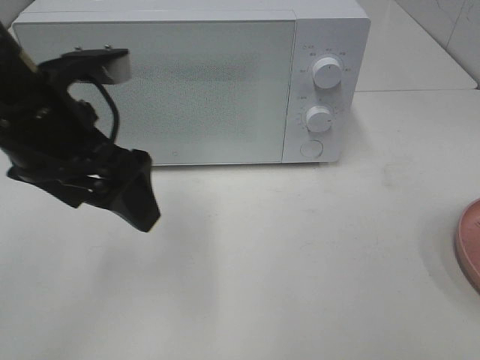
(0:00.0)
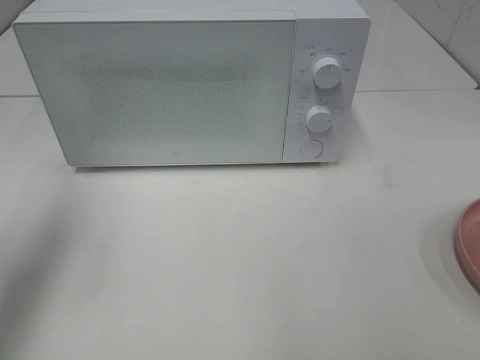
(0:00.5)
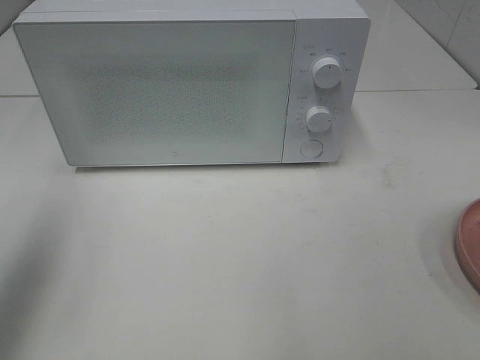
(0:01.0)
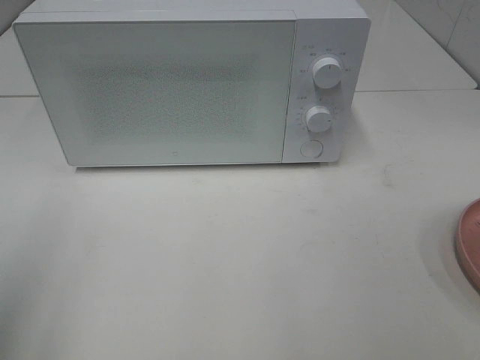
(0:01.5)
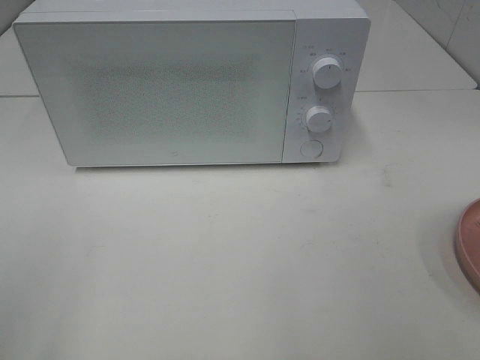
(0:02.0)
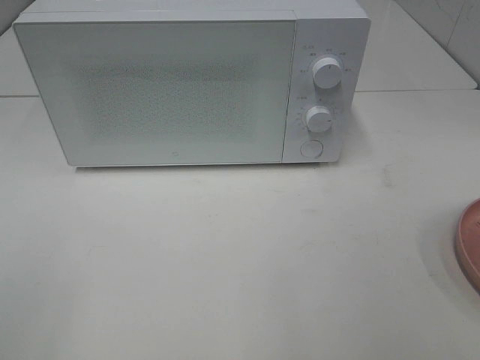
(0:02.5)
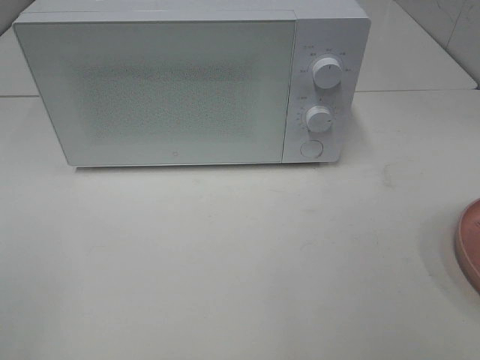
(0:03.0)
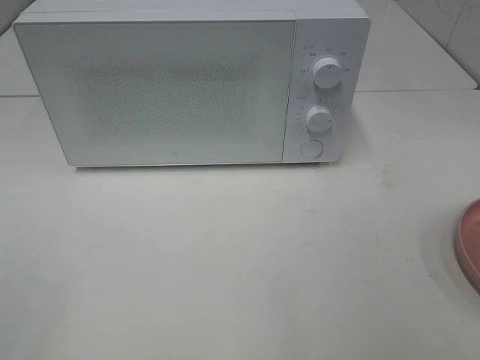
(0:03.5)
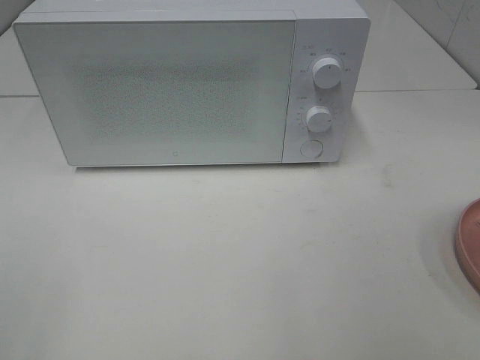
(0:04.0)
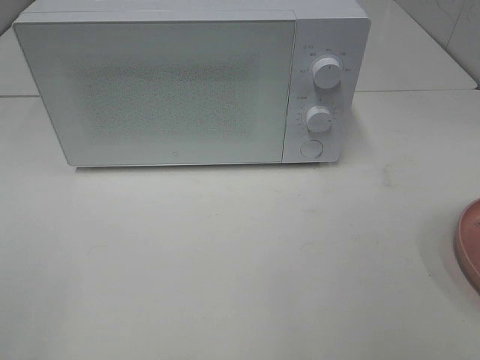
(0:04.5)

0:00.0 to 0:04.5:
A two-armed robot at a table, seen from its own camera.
Task of the whole recording: Heat the burger.
0:00.0 to 0:02.0: The left gripper travels backward and to the left by roughly 25 cm.

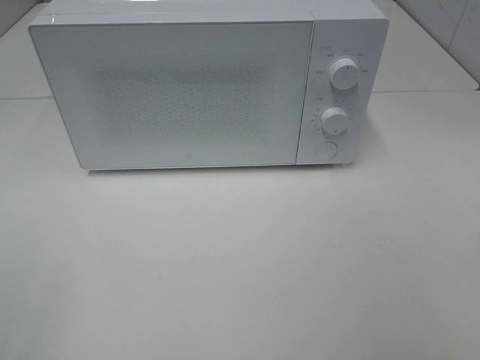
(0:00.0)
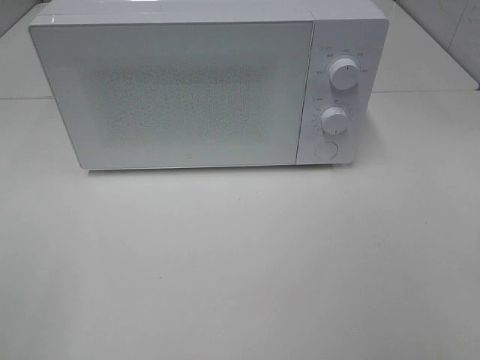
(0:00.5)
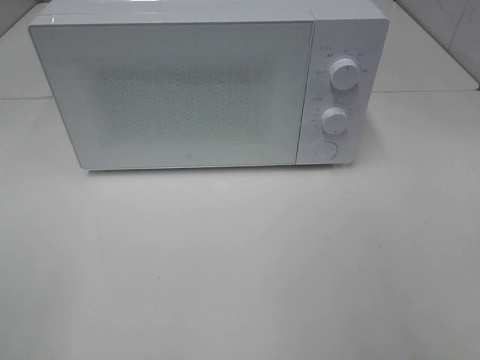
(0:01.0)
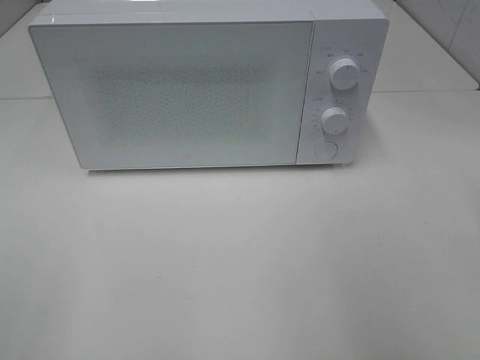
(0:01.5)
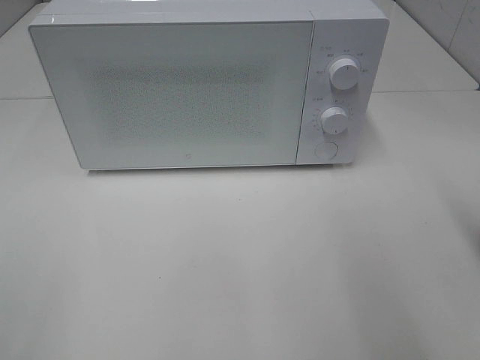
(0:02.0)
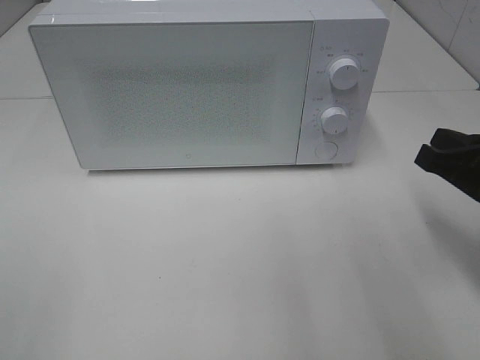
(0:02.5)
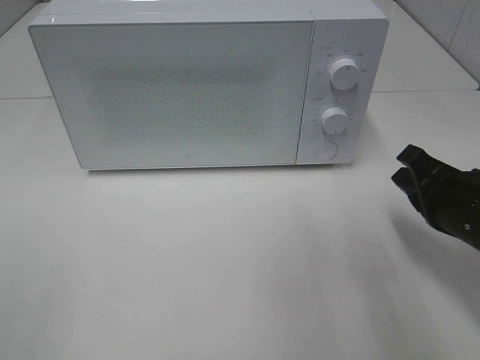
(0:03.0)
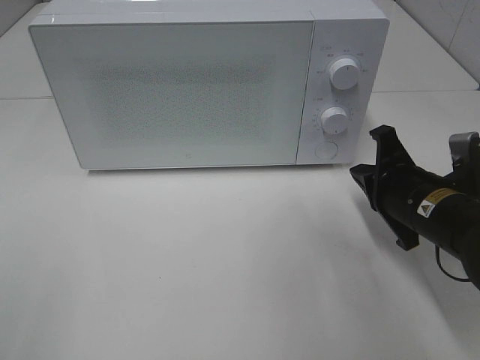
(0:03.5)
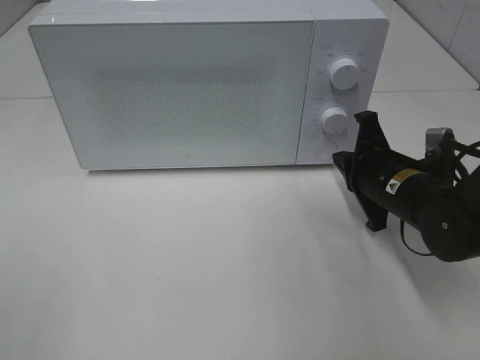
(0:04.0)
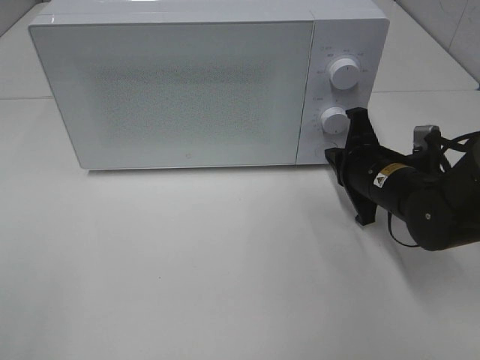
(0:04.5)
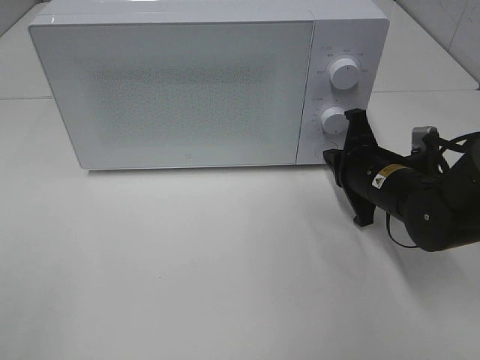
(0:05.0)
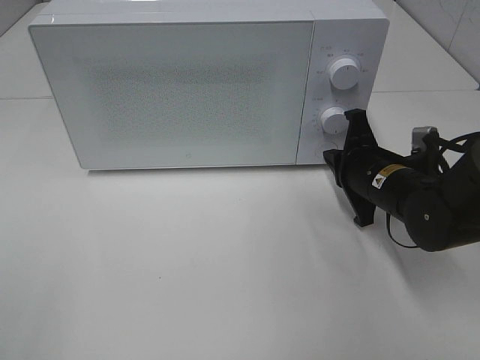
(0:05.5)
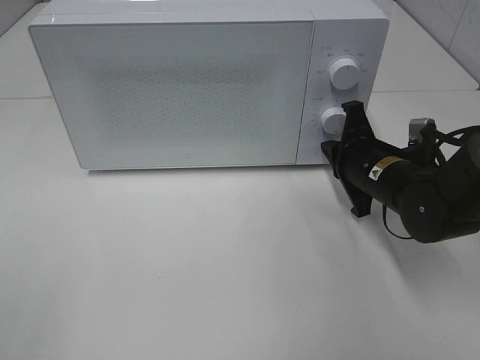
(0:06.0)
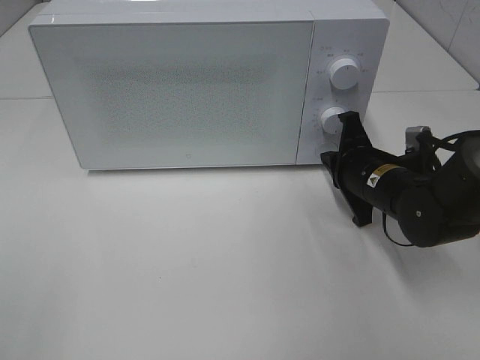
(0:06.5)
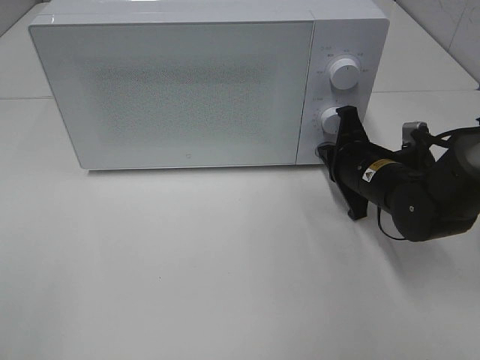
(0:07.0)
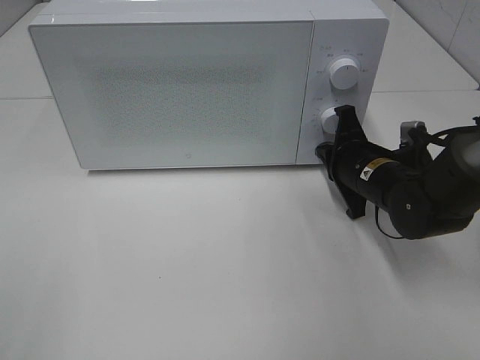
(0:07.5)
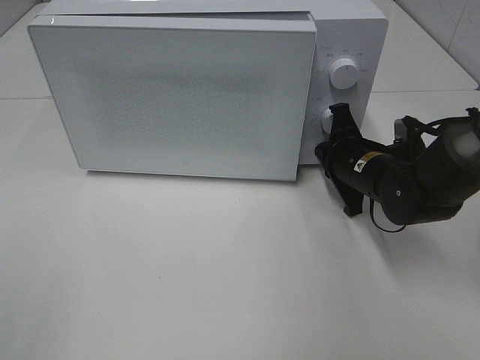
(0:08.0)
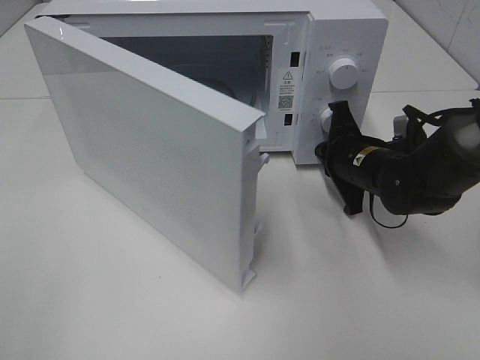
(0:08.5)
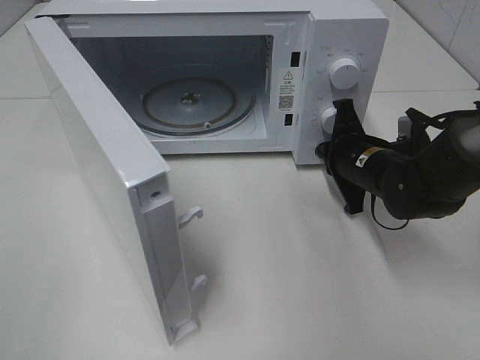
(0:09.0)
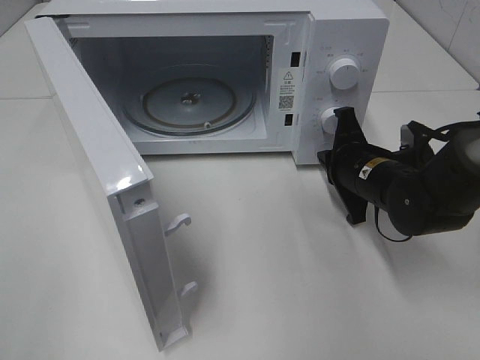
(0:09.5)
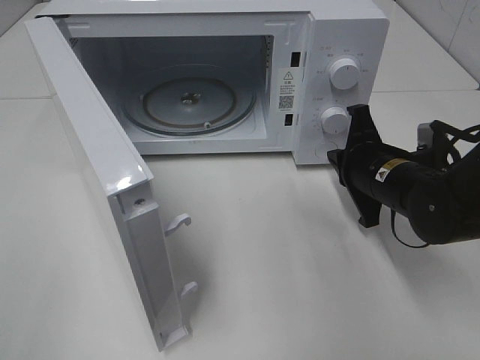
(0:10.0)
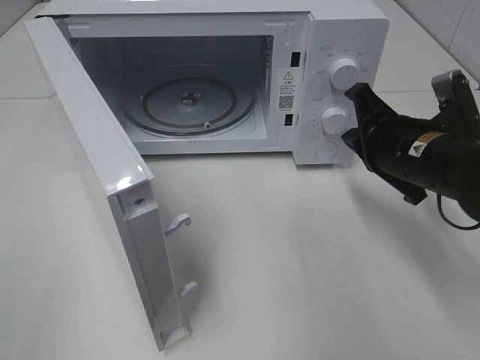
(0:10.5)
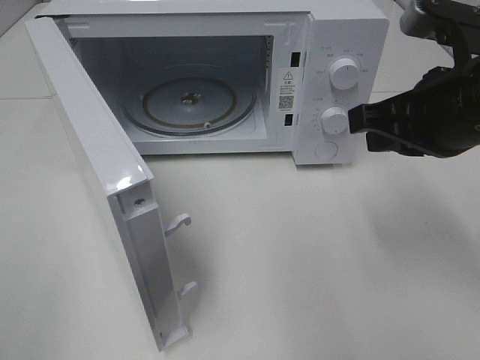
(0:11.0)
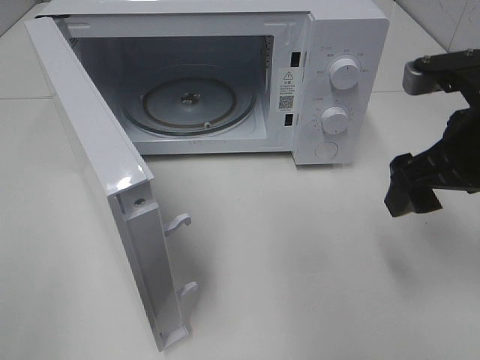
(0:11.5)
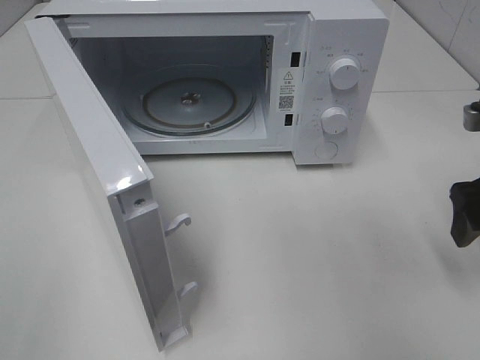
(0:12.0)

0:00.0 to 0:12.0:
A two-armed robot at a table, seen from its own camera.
Task of the whole recording: Heat the burger.
Step, 0:00.0 to 0:10.0: Right hand: press the switch.
0:02.0 to 0:04.0: The right gripper goes about 20 cm downward, forward and to the left.
0:04.0 to 0:08.0: The grippers stay close to where they were, moving slightly.
0:10.0 to 0:12.0: The right gripper shifts some 15 cm to the right, upward and backward, and opens its fingers.

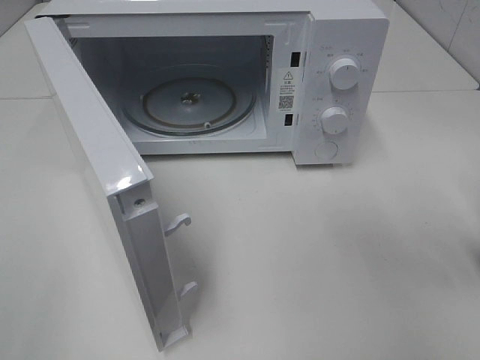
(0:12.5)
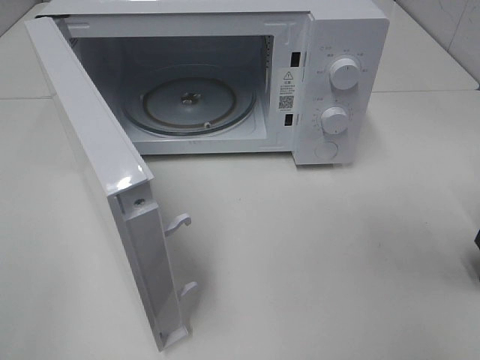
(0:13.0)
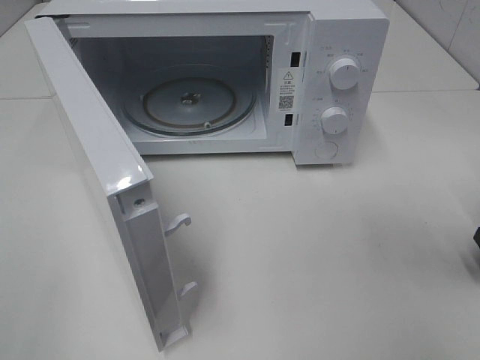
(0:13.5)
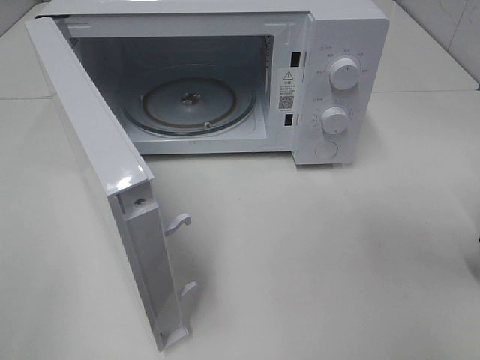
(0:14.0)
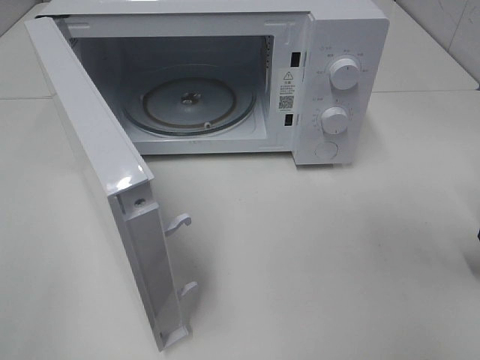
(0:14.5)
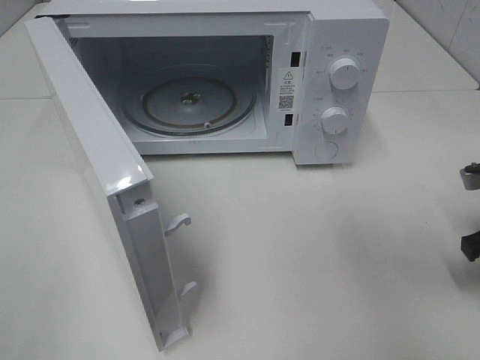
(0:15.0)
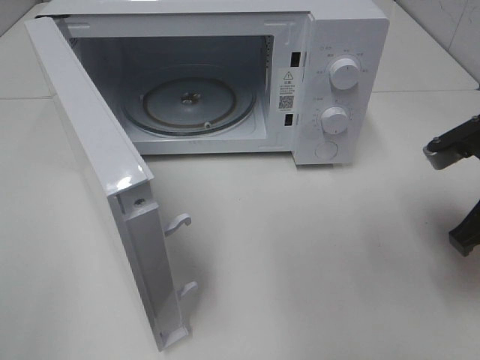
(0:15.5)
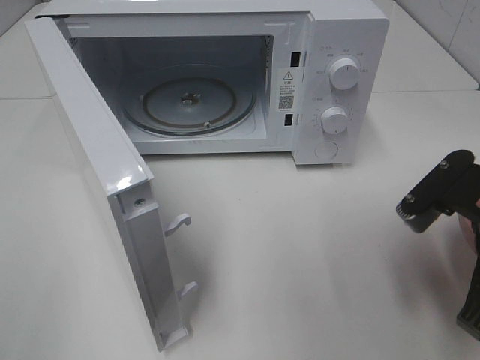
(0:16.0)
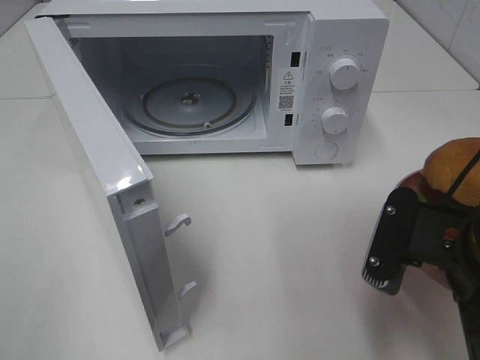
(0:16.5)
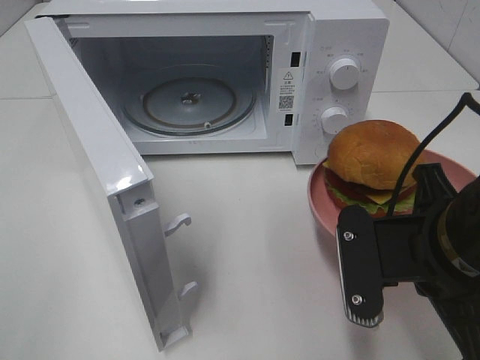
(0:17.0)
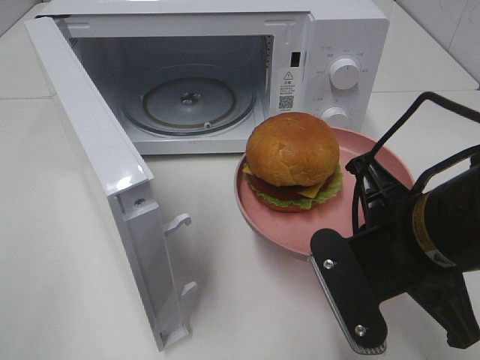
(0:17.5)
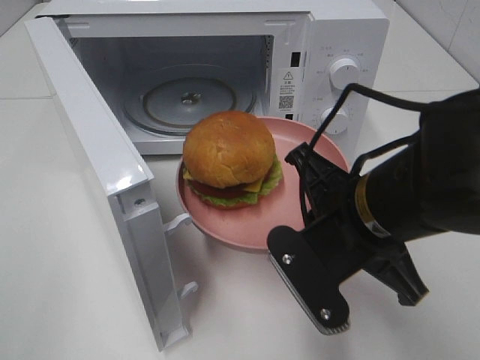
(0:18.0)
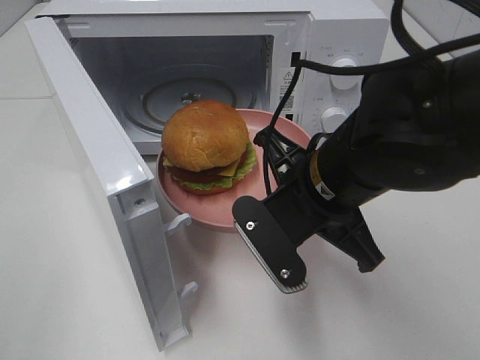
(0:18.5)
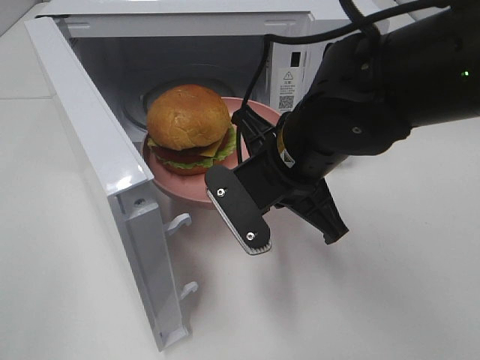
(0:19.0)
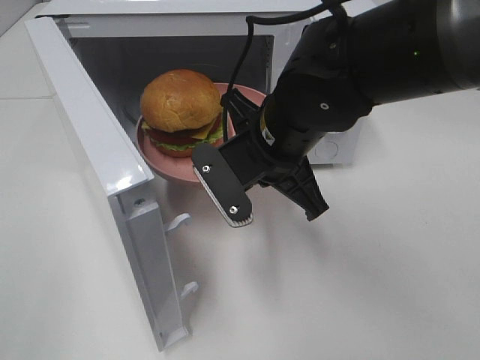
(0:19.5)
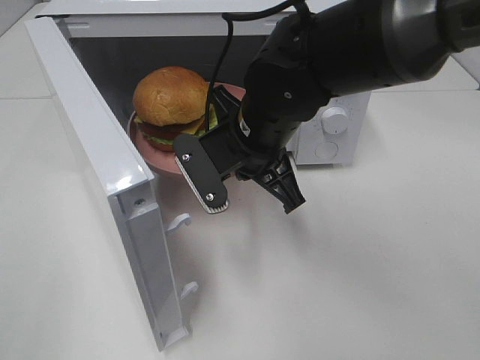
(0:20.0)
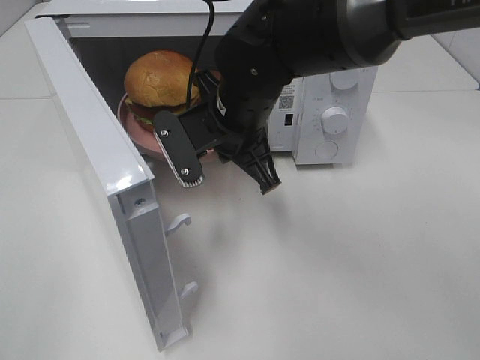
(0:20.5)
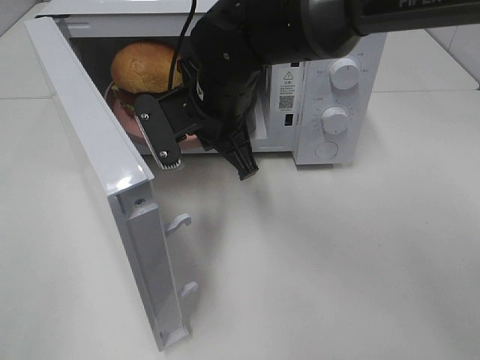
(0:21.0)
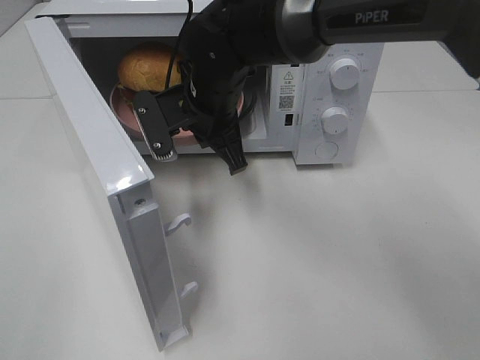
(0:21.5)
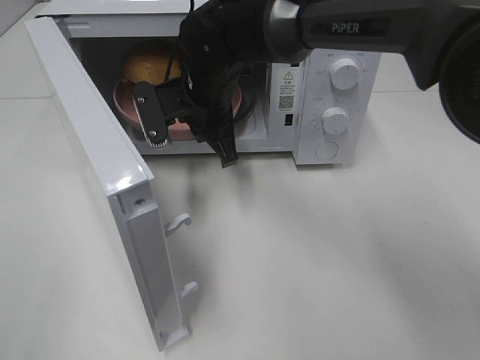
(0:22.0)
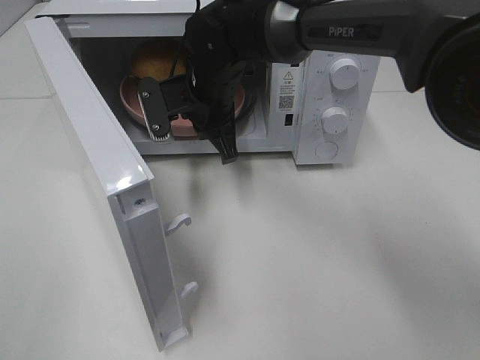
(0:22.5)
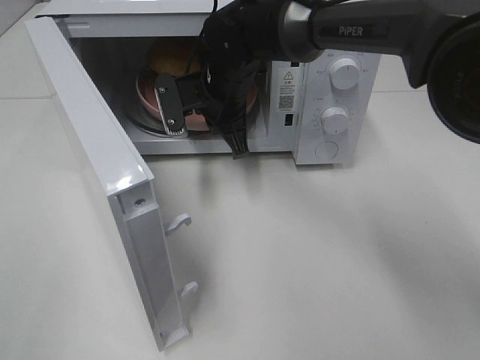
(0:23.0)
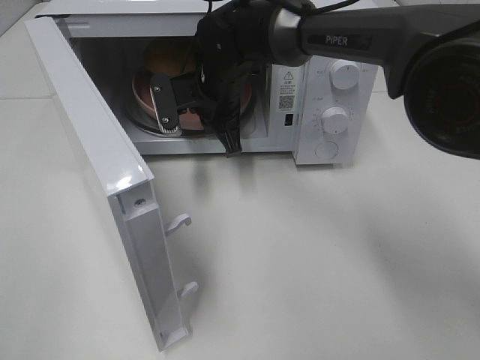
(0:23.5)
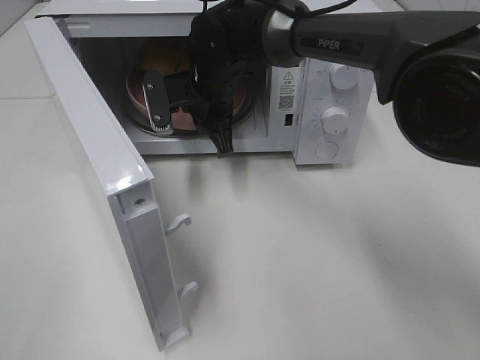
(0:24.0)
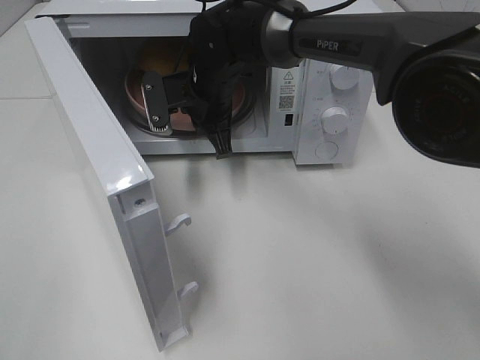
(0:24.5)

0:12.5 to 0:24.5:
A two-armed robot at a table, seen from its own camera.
Task of the whole recording: Heat the burger.
0:14.5 to 0:16.5: The right gripper is displaced to the left and backward by approximately 20 cm.
0:16.5 to 0:18.5: The right gripper travels to the left and forward by roughly 15 cm.
0:18.5 to 0:20.5: The right gripper shifts some 15 cm forward and to the left.
0:20.5 to 0:22.5: The right gripper goes about 10 cm forward.
0:22.5 to 0:24.5: The grippers move only a little.
